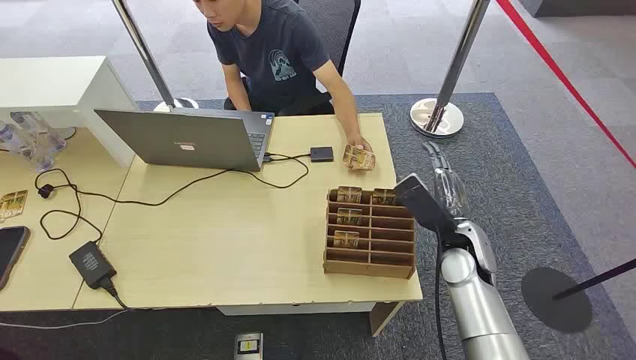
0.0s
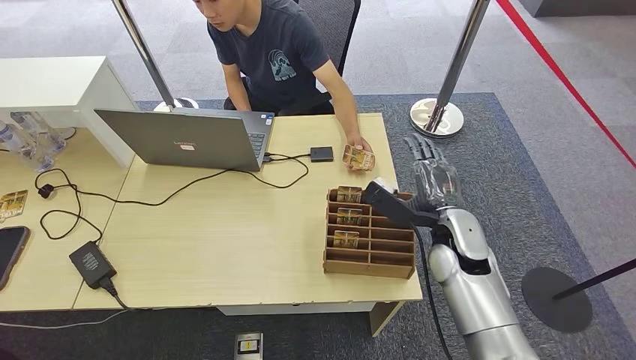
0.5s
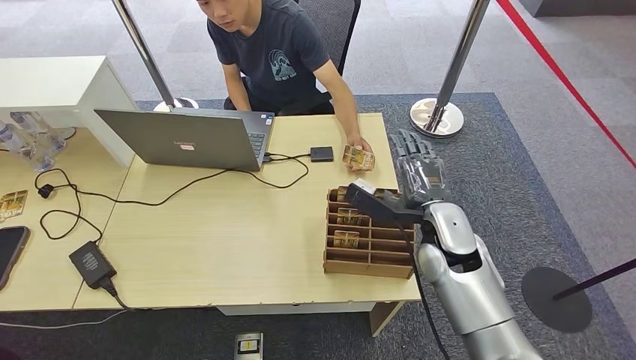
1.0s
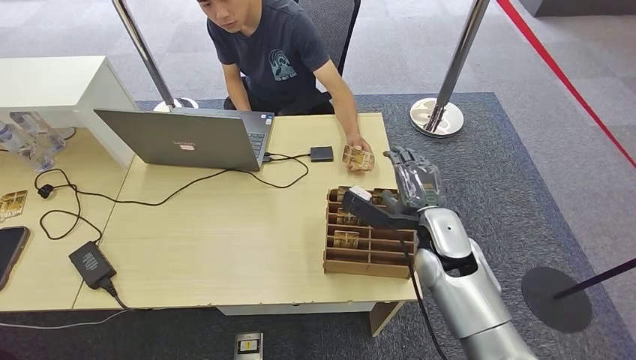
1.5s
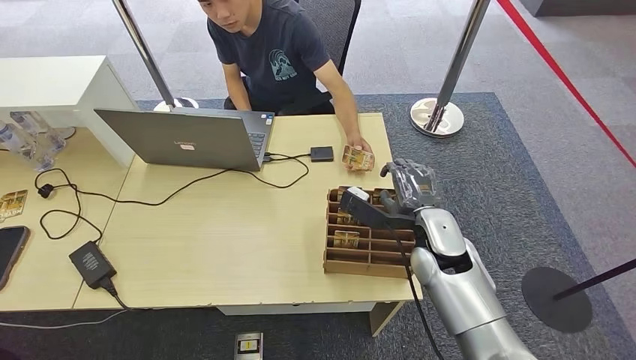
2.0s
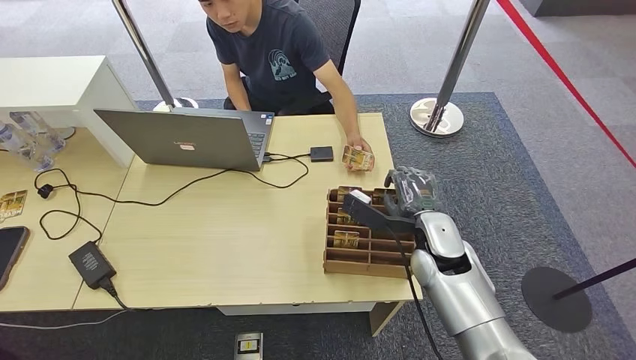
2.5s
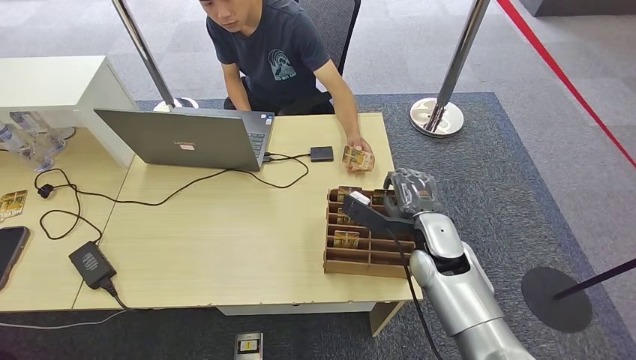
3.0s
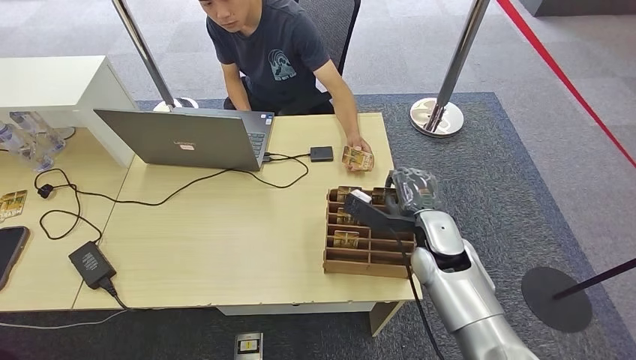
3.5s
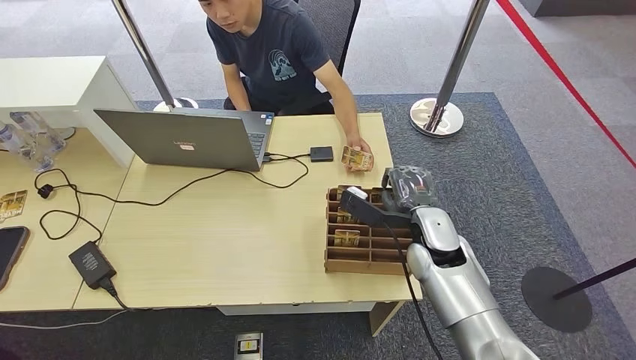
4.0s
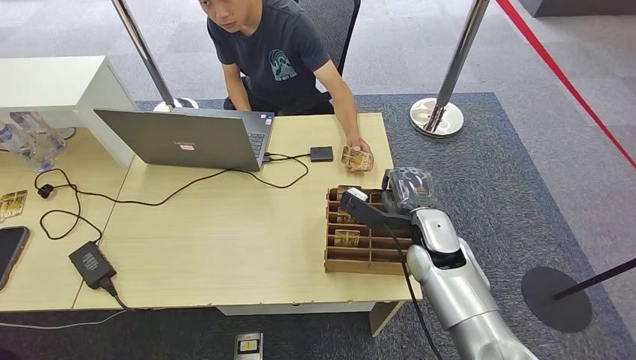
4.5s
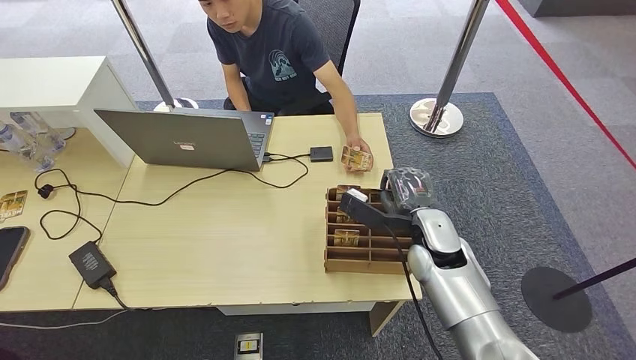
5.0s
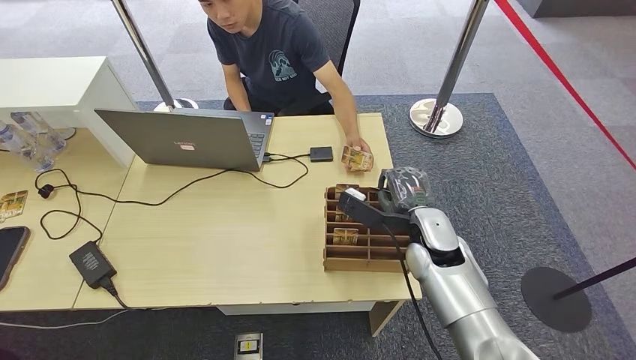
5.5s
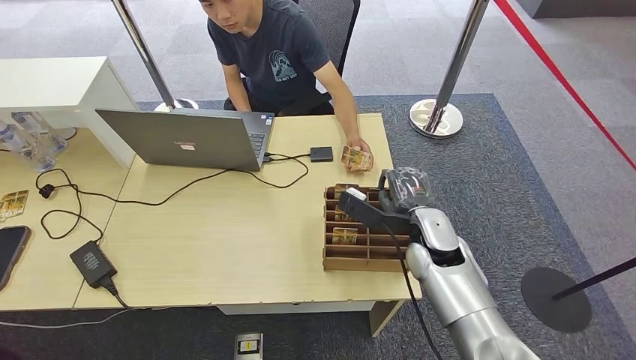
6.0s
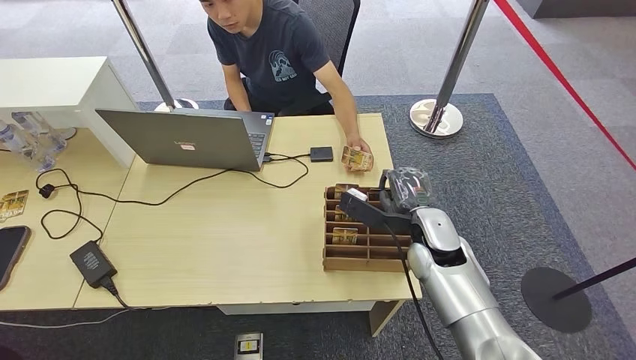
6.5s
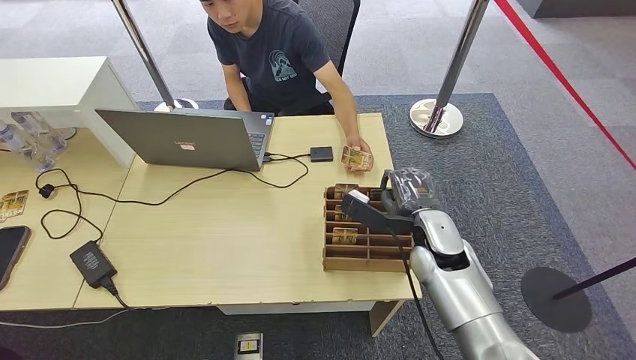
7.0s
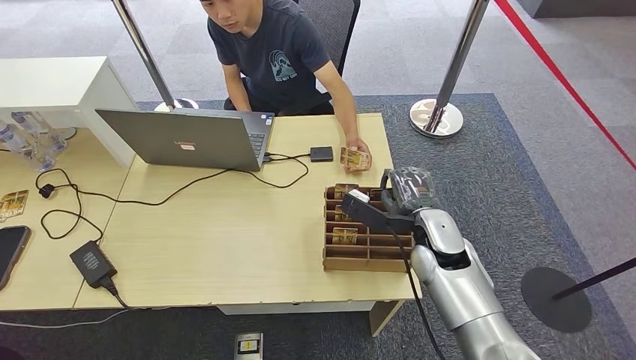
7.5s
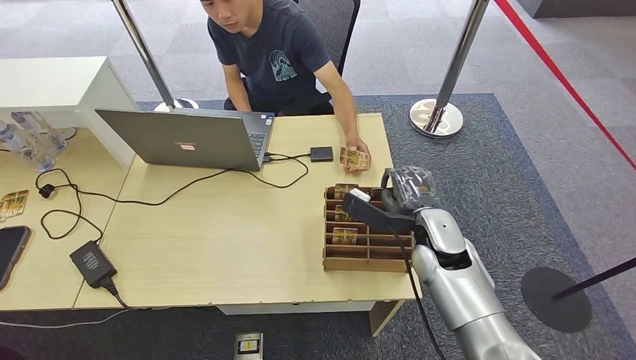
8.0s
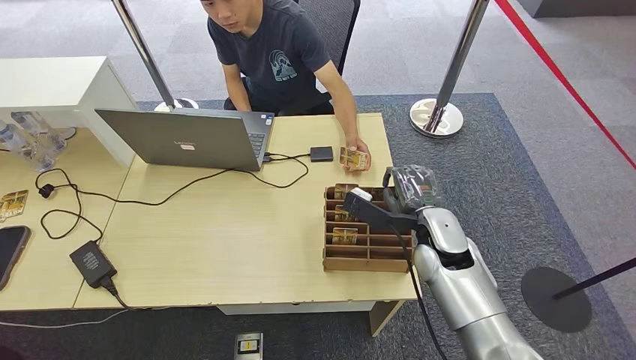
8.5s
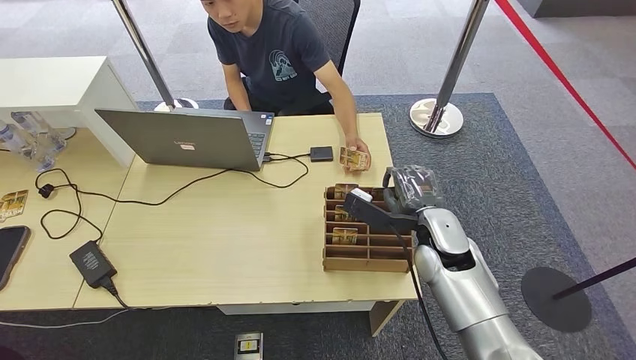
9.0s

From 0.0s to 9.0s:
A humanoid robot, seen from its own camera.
From 2.0s to 4.5s: There are only small adjustments of the hands.
From 4.5s to 7.0s: Both hands stay about where they are.
From 7.0s to 9.0s: Both hands stay about where they are.

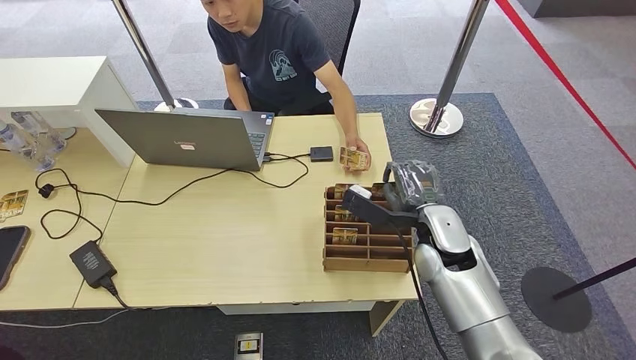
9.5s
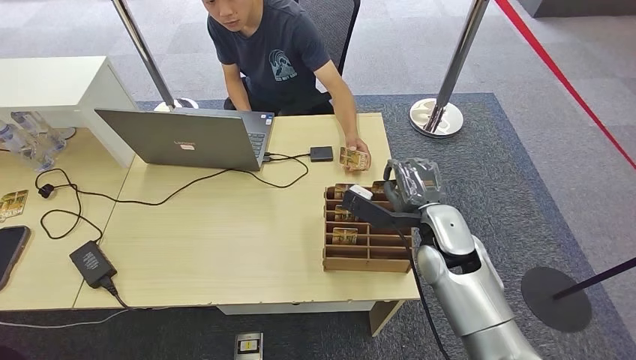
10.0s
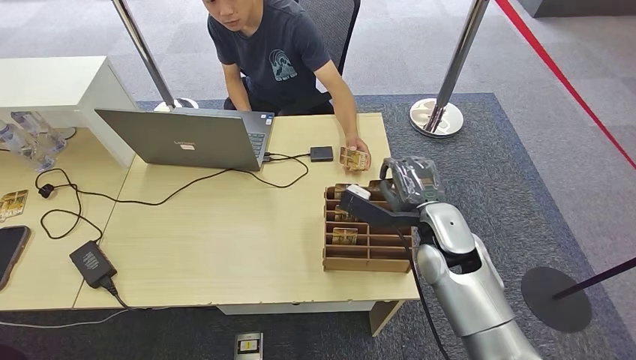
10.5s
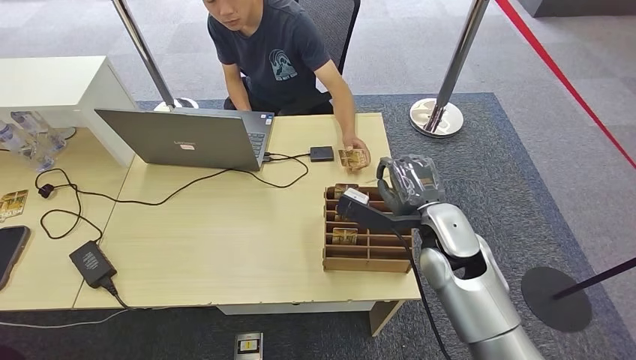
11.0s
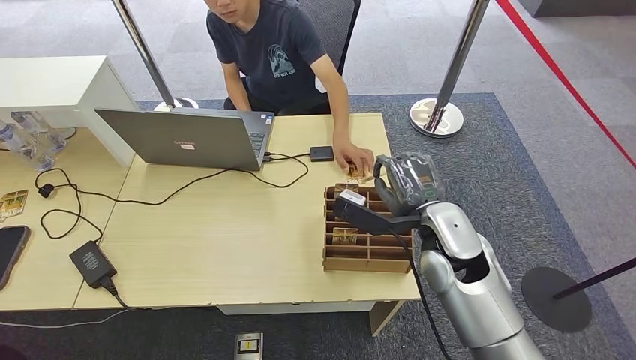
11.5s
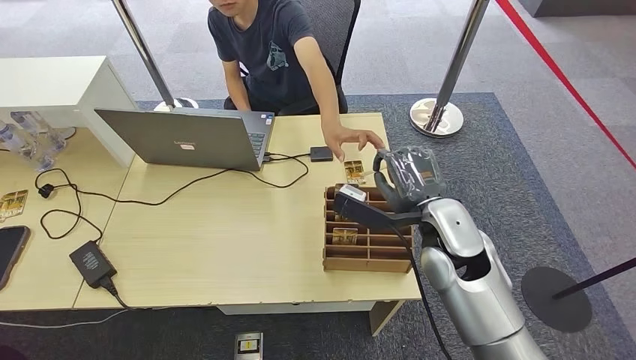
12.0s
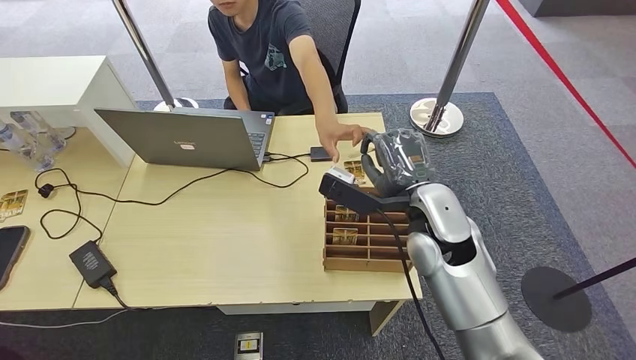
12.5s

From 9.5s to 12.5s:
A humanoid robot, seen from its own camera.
Step, from 9.5s to 11.5s: Pick up the room card from the card holder.
Step, from 12.0s to 12.5s: Hand the room card to the target.
From 9.5s to 11.0s: The hands make only small movements.
From 11.0s to 12.5s: The right hand moves approximately 5 cm.
